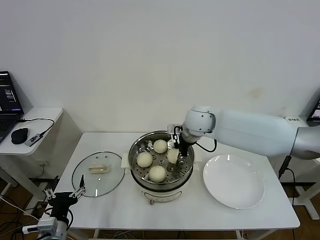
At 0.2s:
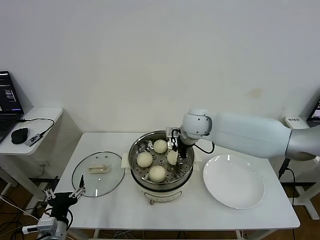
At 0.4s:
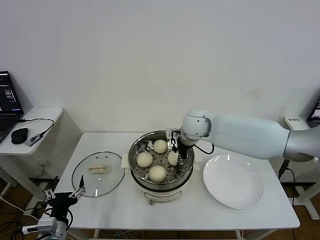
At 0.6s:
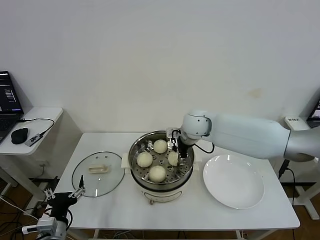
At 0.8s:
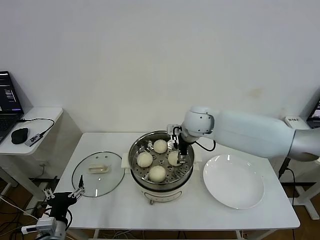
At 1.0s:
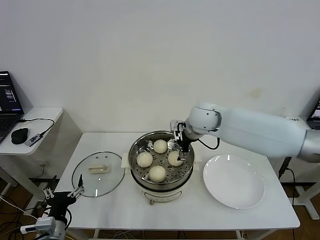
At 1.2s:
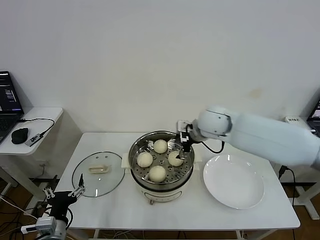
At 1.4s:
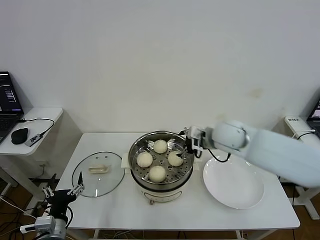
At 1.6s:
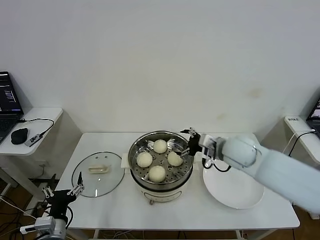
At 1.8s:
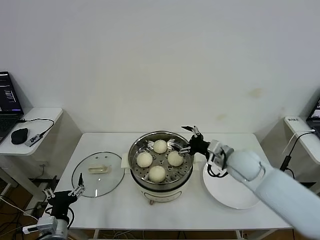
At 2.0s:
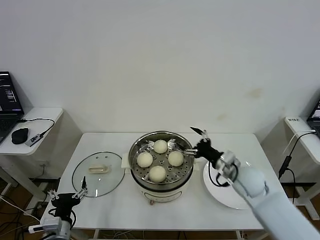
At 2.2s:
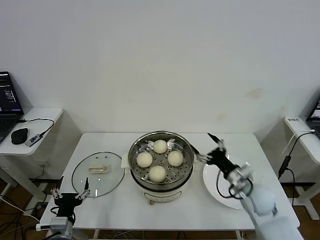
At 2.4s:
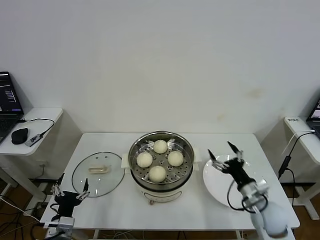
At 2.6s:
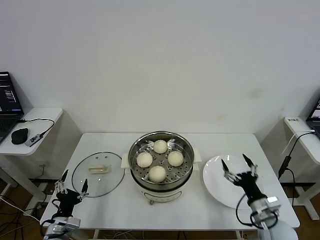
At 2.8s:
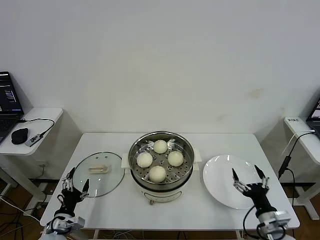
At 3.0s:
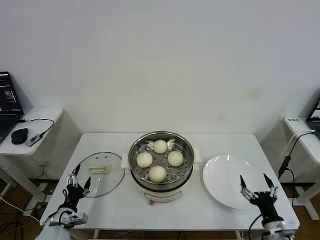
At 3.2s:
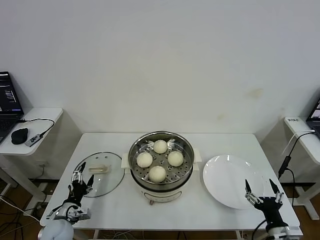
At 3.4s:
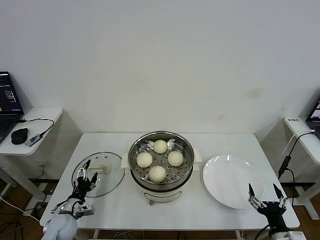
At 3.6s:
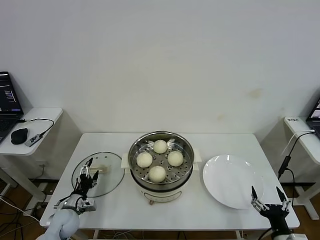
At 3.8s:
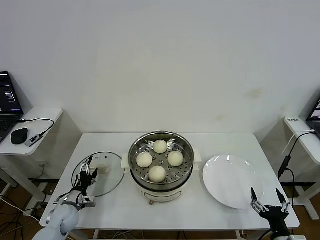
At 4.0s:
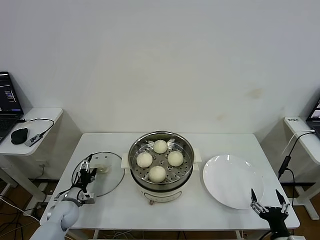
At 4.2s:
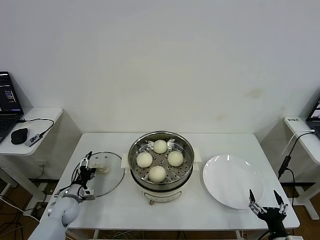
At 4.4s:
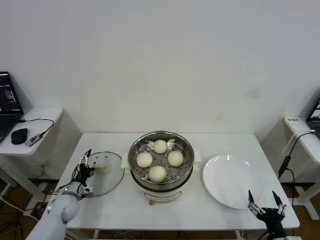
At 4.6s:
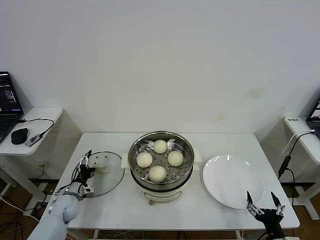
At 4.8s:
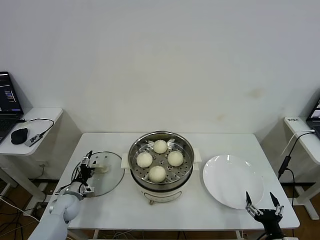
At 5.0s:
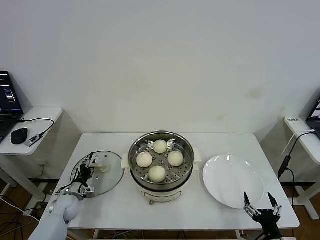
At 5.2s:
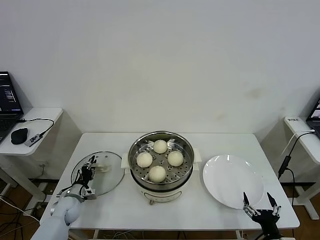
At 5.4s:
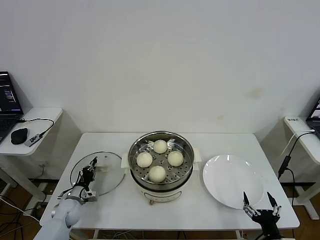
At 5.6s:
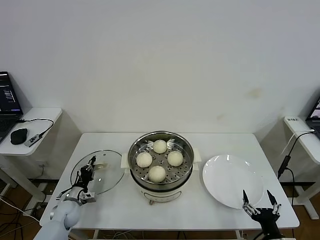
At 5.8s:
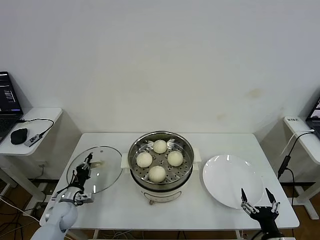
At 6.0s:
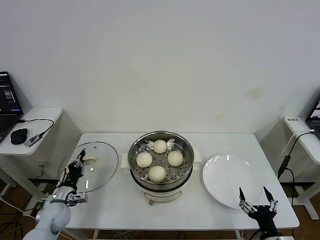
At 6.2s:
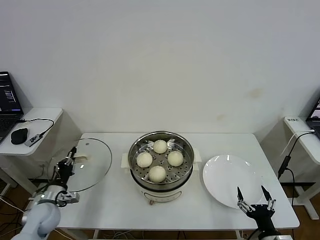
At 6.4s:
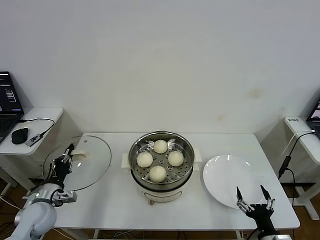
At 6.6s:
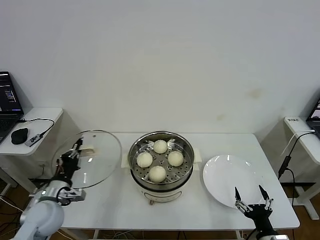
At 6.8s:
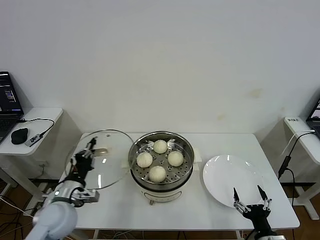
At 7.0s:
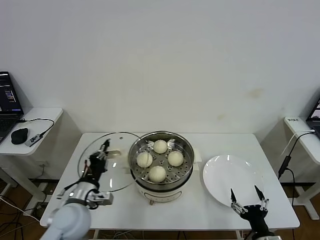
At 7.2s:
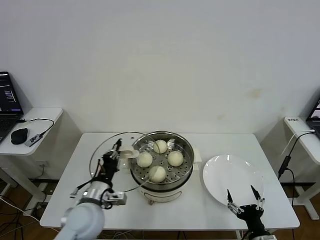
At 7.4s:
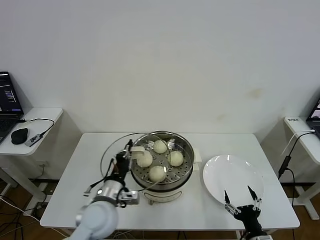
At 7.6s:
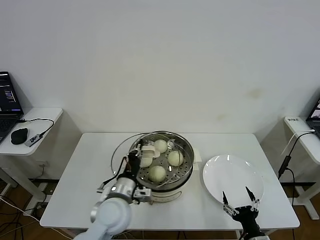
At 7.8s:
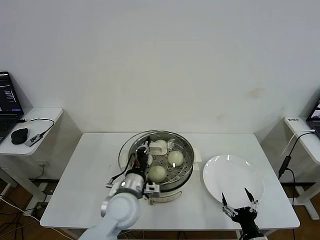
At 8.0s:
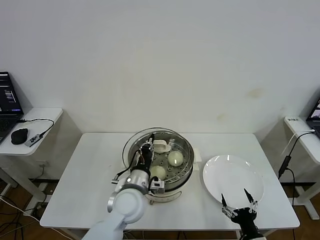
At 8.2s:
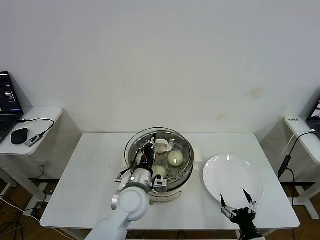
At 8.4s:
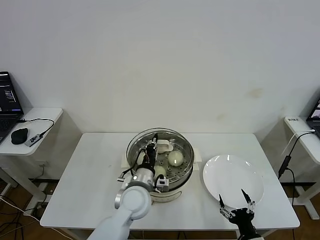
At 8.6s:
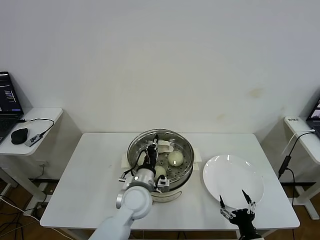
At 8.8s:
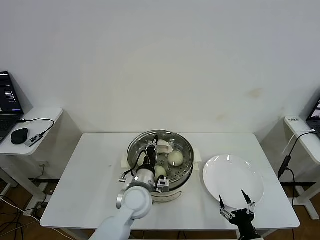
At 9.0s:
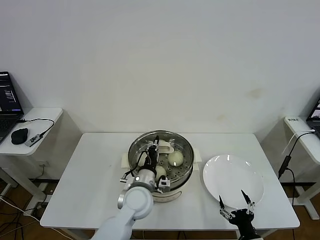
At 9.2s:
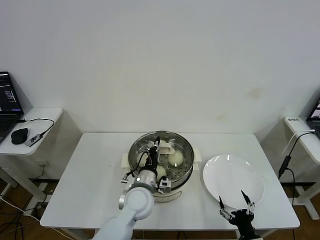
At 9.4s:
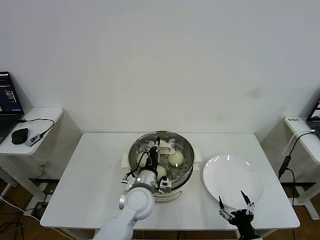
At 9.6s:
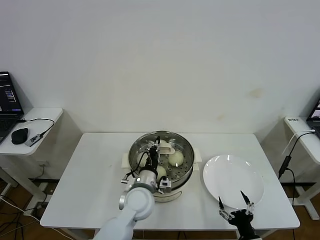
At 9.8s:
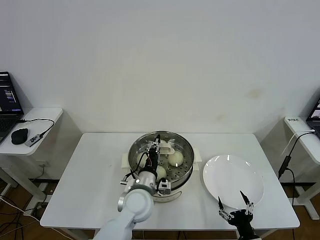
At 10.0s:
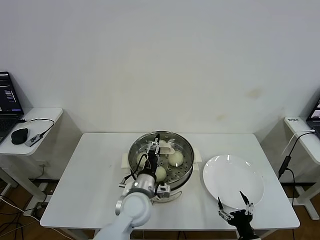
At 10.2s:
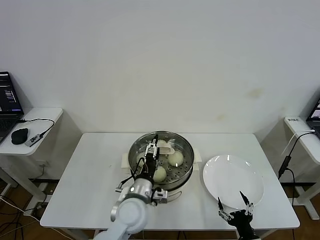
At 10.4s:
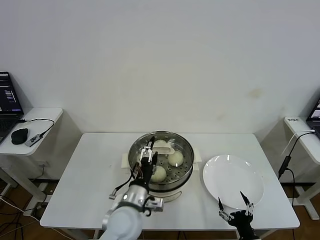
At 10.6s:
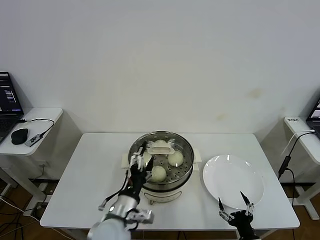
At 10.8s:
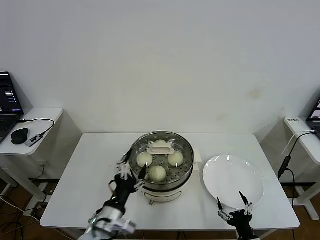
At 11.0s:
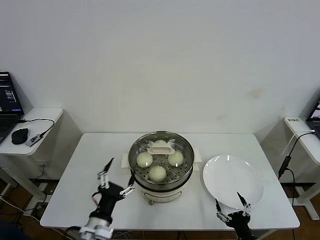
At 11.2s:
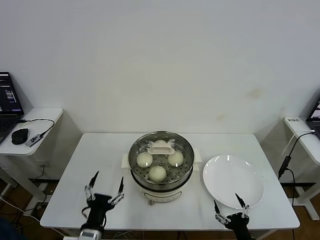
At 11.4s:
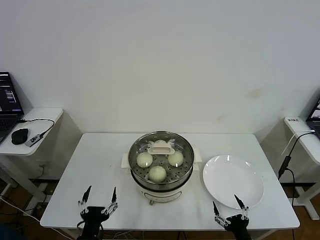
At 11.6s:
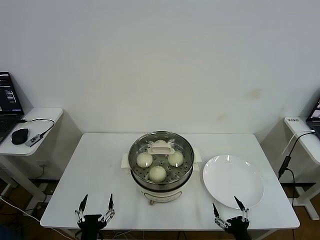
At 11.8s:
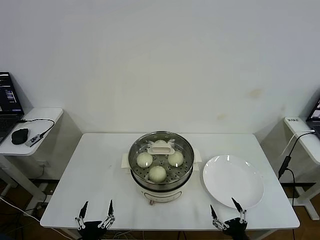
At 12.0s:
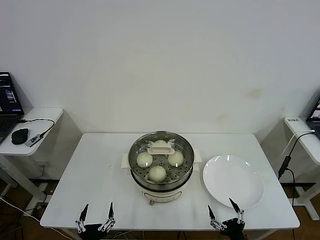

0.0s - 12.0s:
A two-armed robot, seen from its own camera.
Task of the whole recording: take steamed baozi put them in steamer then cover it.
Step, 1.0s - 5.6s: Grasp the pot lid with left gripper.
Step, 5.8s - 10.2s: Place the pot lid on the steamer with left gripper.
0.0s - 1.6s: The right gripper moves to the right and backward, some 15 cm, and opens up.
1.6s - 3.0s: The left gripper moves downward and forward, approximately 10 cm; the right gripper is displaced backward, downward and to the right by some 35 cm.
3.0s - 4.4s: The left gripper moves forward, approximately 15 cm.
4.4s - 6.0s: The left gripper closes its fingers.
6.0s - 7.6s: The left gripper shifts approximately 30 cm to the right and upward.
7.6s - 9.0s: The left gripper travels to the right and forward by about 10 cm.
9.0s - 10.4s: The left gripper goes some 5 cm backward, and opens.
10.4s - 12.0s: The left gripper heads backward, to the left and downward, covering roughly 25 cm.
